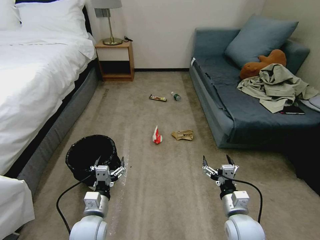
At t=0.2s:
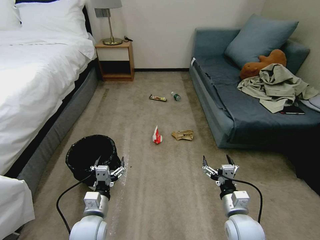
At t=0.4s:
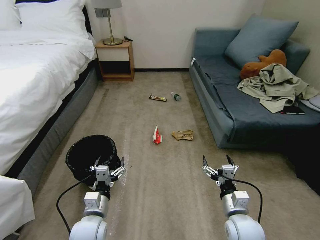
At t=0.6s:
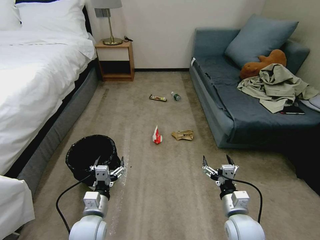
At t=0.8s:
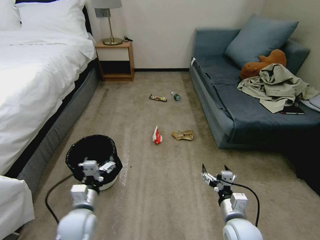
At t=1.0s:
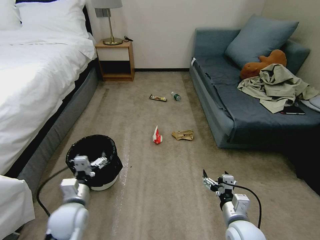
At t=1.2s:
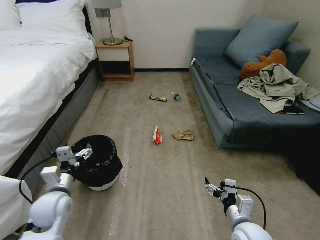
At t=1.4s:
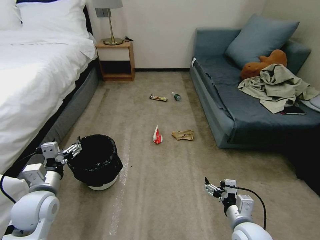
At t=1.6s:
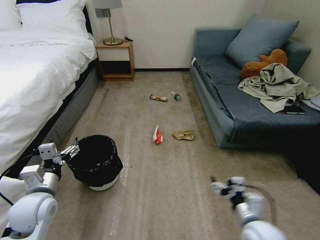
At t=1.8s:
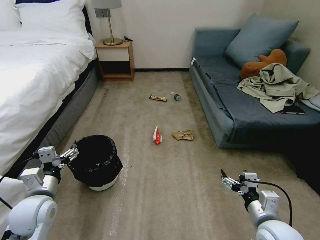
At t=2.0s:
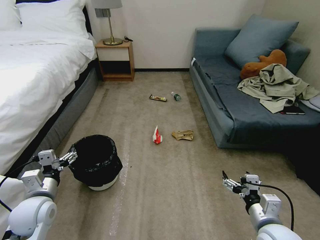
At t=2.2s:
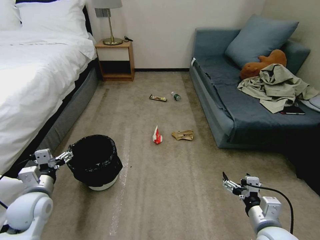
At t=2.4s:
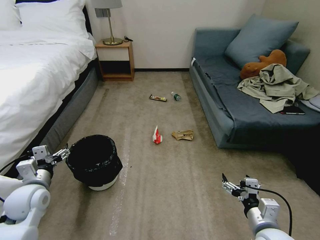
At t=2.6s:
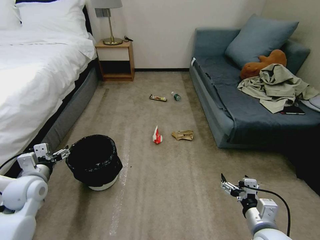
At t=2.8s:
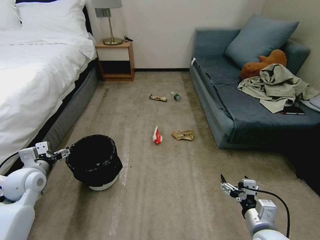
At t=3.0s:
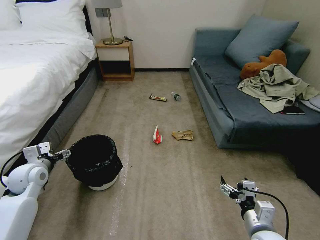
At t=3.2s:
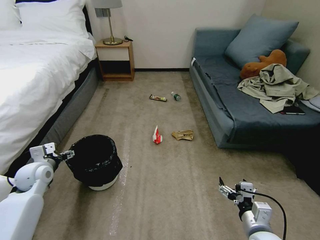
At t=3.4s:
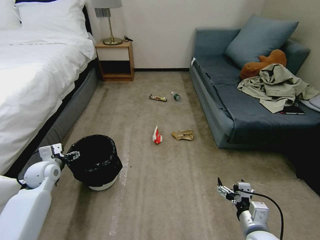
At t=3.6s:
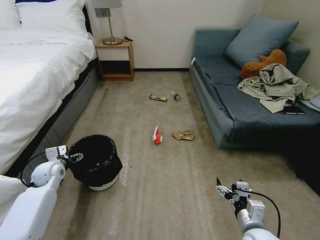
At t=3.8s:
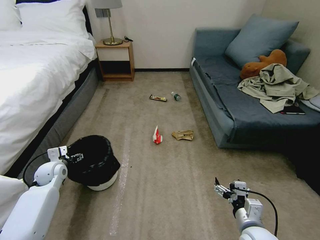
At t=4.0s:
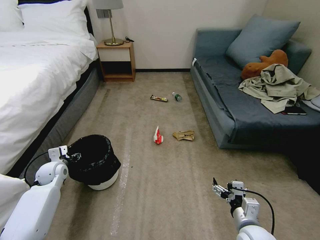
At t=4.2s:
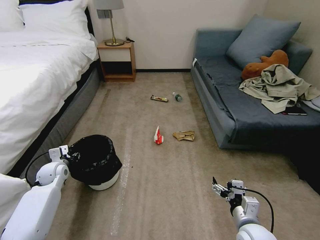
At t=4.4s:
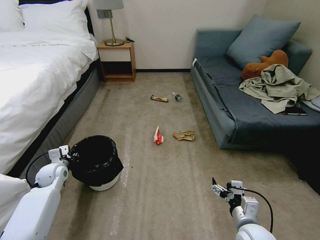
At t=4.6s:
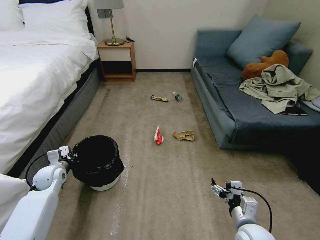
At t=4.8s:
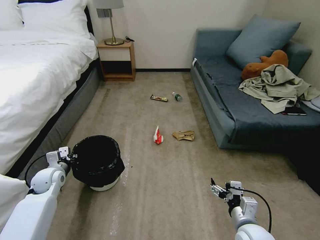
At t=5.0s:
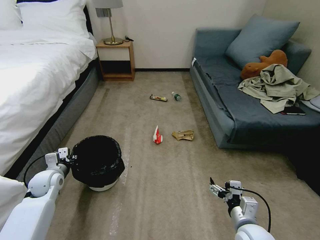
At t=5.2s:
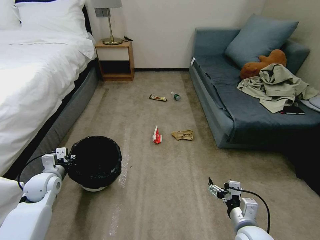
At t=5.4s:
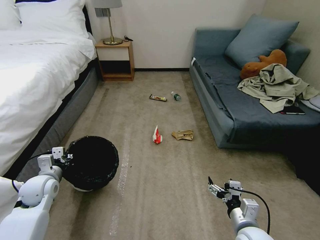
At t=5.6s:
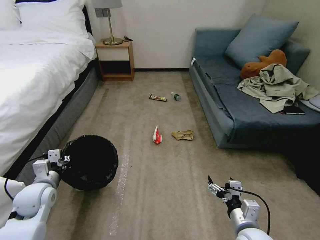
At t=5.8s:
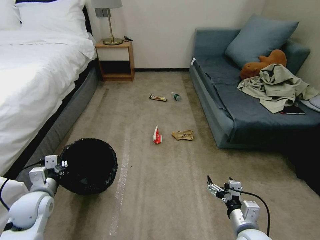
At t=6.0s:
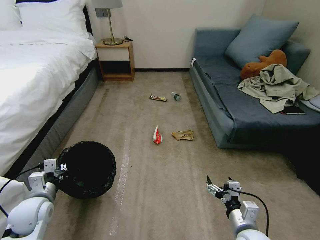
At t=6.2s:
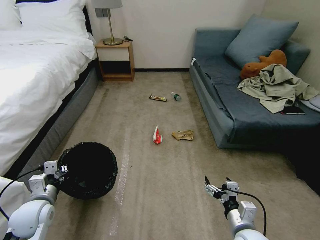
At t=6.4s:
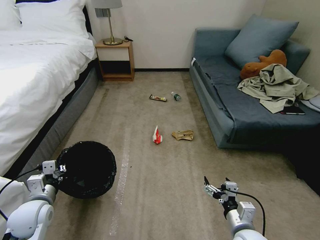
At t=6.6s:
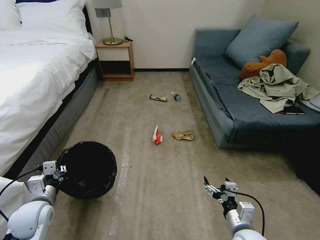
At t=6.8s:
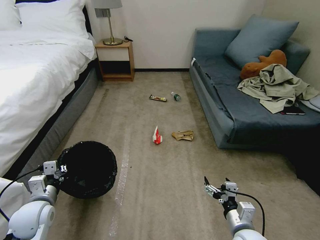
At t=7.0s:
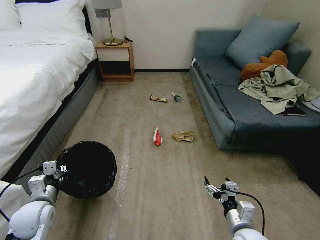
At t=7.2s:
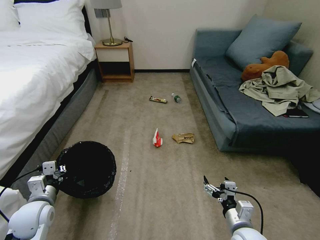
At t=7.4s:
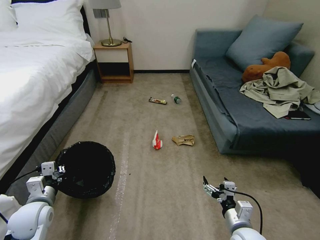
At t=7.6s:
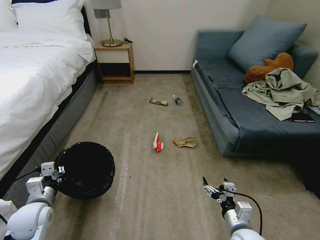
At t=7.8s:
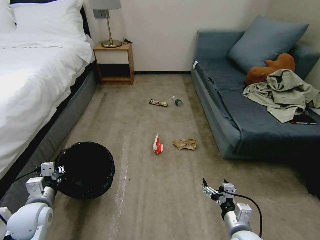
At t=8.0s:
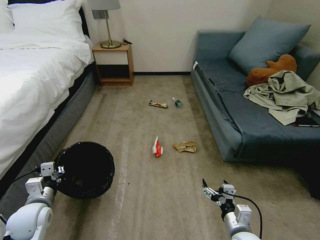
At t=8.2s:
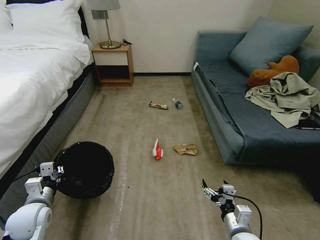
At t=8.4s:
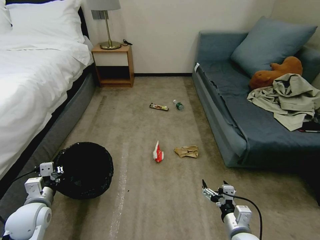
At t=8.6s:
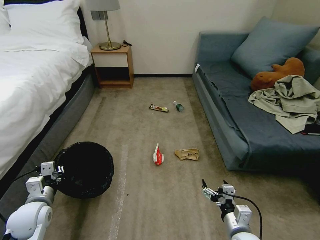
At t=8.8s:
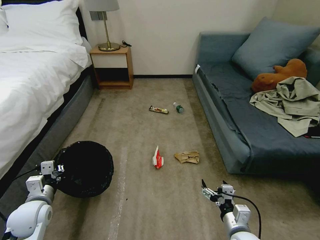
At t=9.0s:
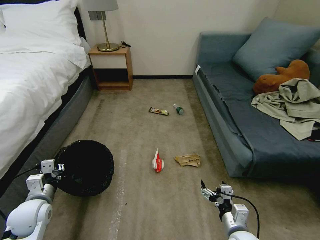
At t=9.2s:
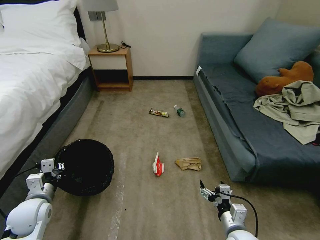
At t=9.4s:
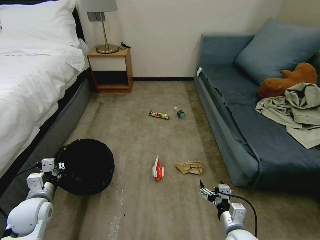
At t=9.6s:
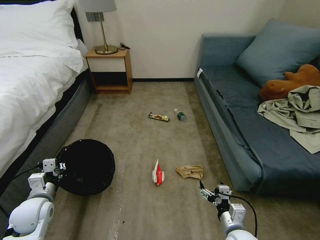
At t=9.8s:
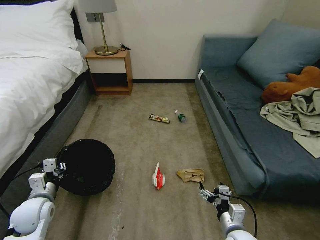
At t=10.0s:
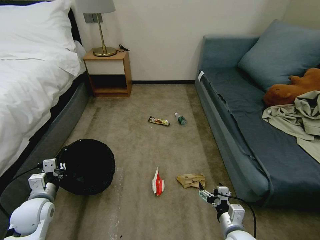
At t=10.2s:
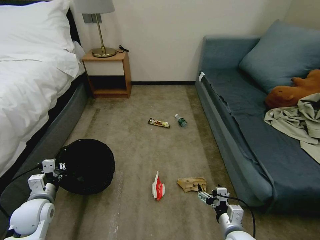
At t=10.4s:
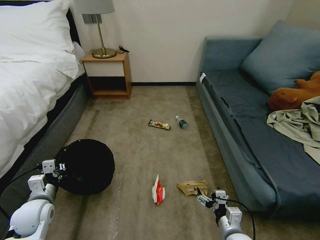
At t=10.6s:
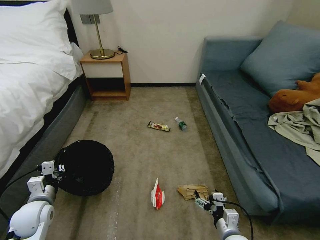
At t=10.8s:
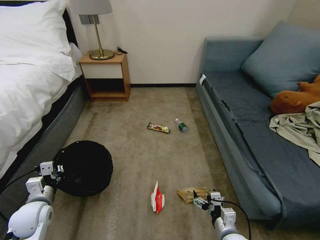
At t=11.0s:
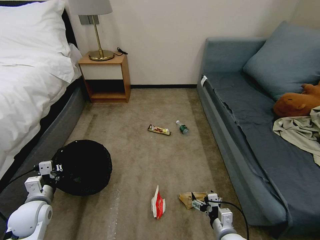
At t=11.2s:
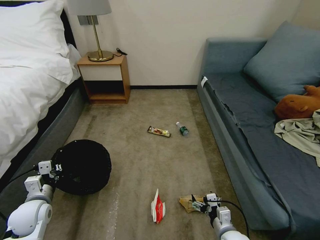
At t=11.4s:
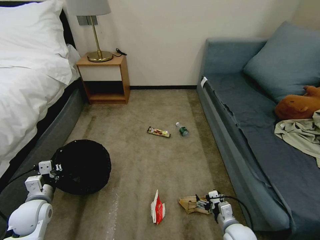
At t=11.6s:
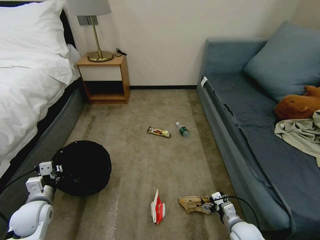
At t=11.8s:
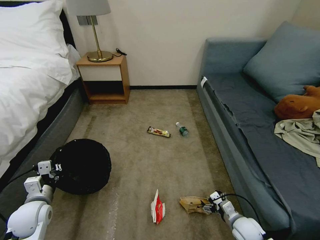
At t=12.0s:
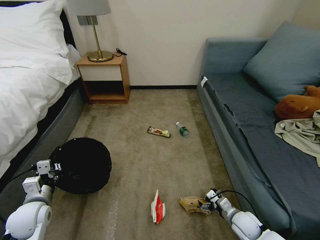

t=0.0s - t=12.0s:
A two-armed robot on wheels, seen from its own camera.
Task of the whole recording: Pick up the trash bin, then pick up the garbage on the floor and place it into the trash bin.
t=1.6s - t=3.0s: The left gripper shifts approximately 15 cm forward and to the left.
t=3.0s - t=4.4s: The left gripper moves downward and forward, approximately 10 cm, and closes its fingers.
t=4.4s - t=6.0s: The left gripper goes about 15 cm backward.
t=6.0s - t=7.6s: The grippers make only small movements.
t=10.4s - t=12.0s: The right gripper moves forward, to the right and downward, approximately 15 cm.

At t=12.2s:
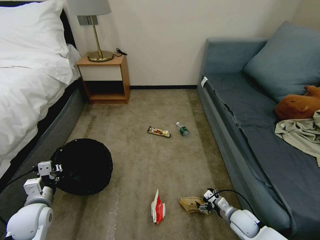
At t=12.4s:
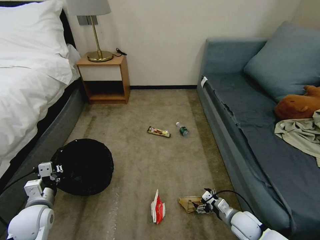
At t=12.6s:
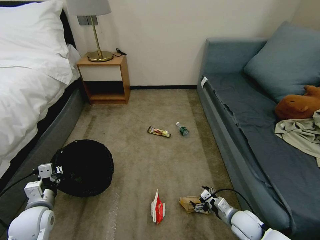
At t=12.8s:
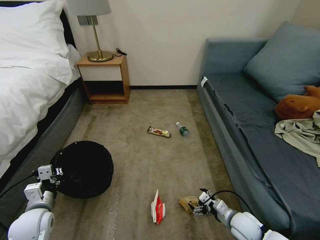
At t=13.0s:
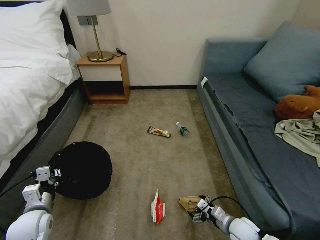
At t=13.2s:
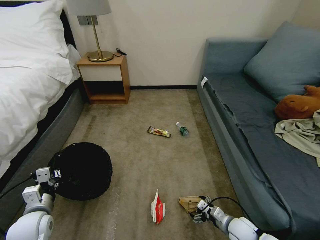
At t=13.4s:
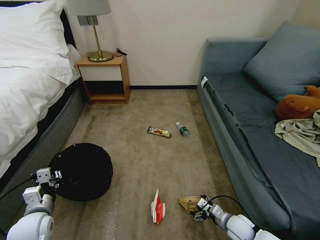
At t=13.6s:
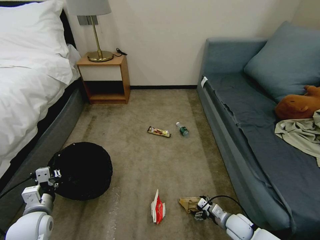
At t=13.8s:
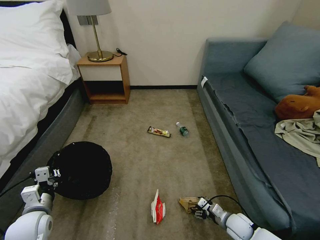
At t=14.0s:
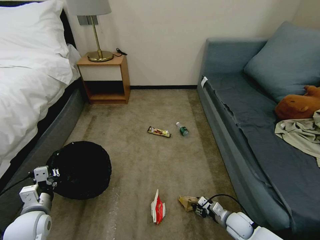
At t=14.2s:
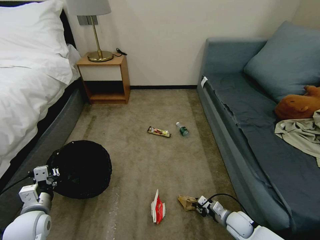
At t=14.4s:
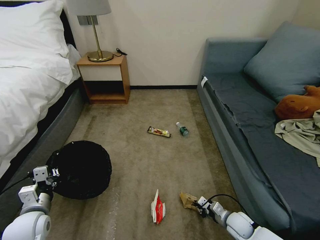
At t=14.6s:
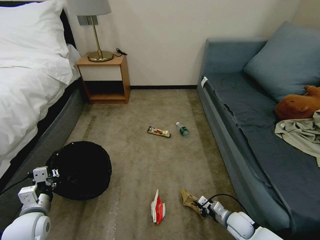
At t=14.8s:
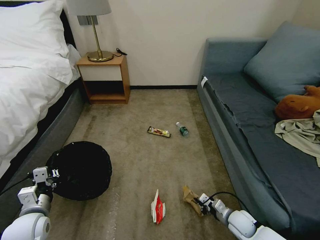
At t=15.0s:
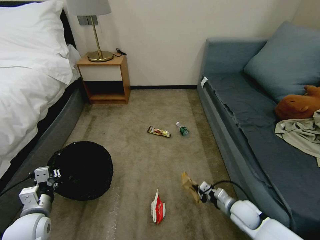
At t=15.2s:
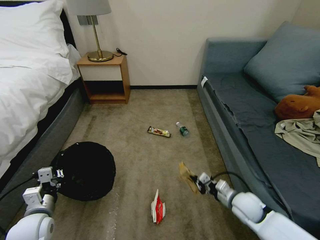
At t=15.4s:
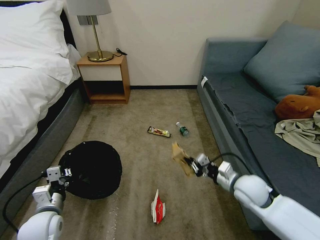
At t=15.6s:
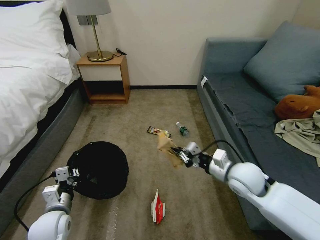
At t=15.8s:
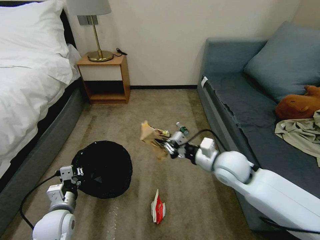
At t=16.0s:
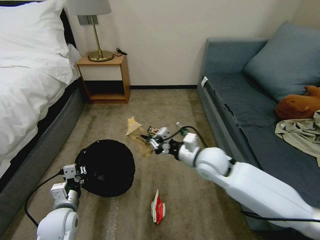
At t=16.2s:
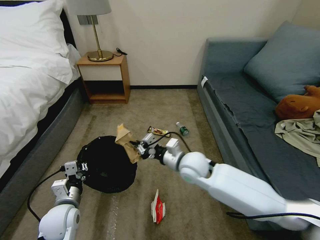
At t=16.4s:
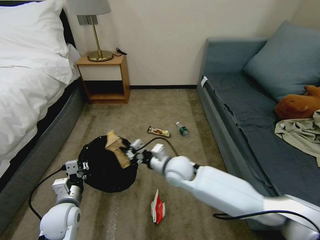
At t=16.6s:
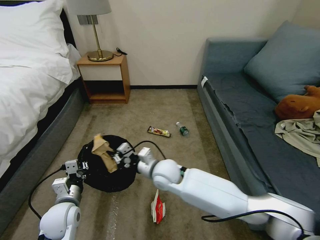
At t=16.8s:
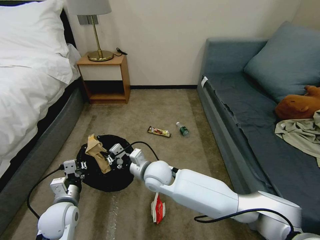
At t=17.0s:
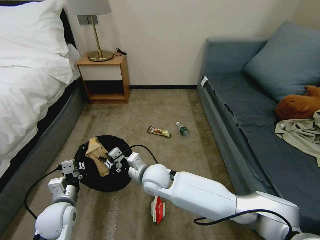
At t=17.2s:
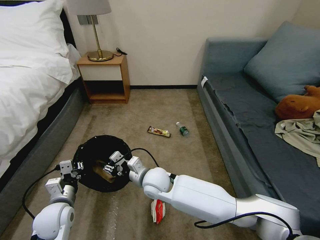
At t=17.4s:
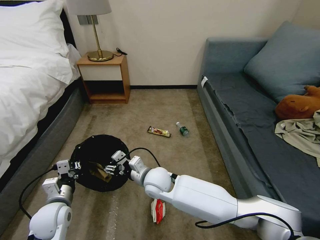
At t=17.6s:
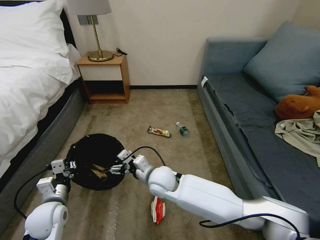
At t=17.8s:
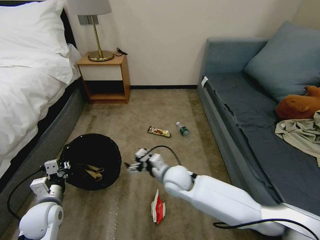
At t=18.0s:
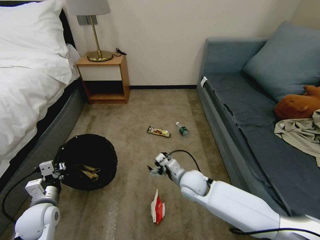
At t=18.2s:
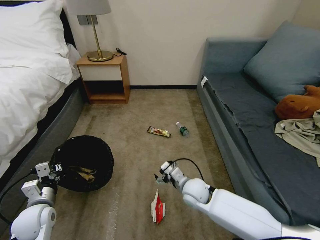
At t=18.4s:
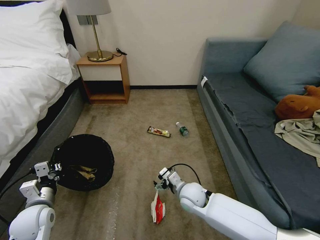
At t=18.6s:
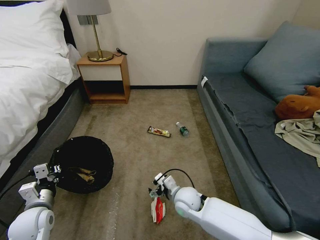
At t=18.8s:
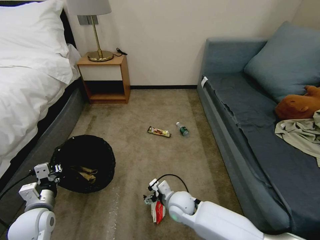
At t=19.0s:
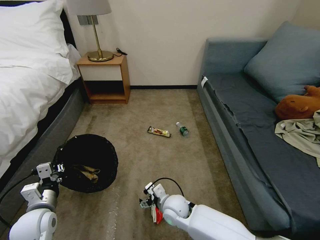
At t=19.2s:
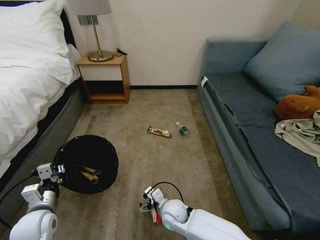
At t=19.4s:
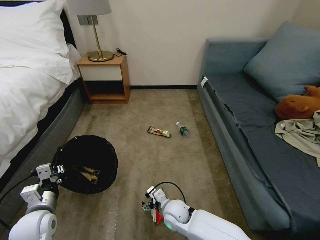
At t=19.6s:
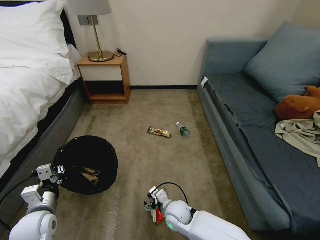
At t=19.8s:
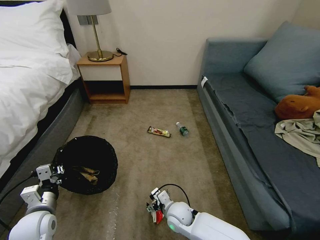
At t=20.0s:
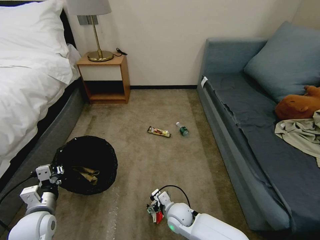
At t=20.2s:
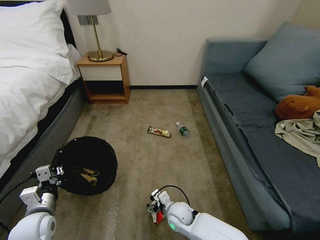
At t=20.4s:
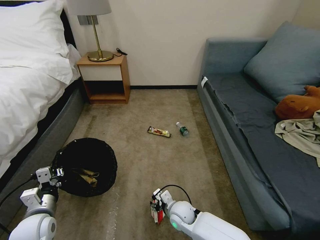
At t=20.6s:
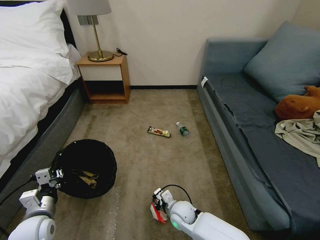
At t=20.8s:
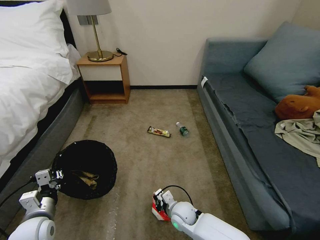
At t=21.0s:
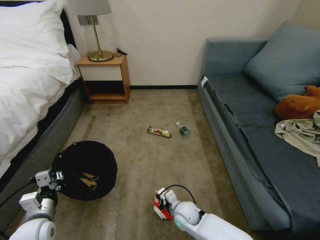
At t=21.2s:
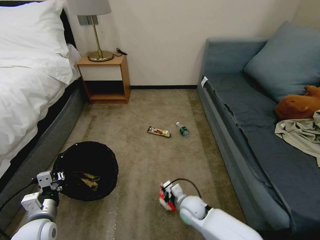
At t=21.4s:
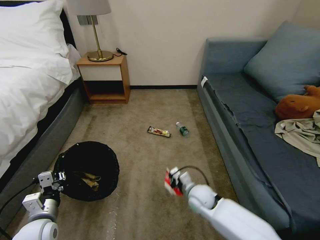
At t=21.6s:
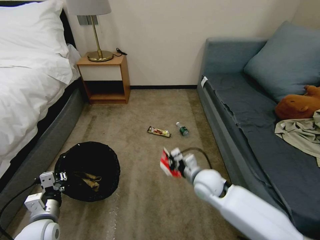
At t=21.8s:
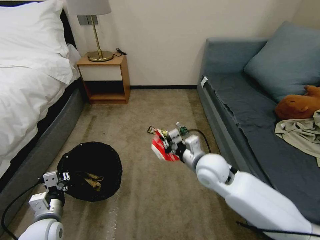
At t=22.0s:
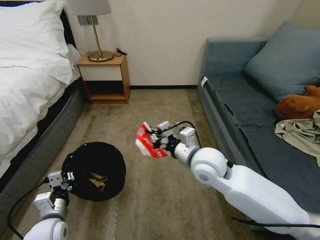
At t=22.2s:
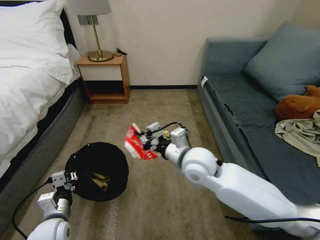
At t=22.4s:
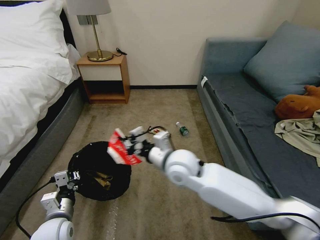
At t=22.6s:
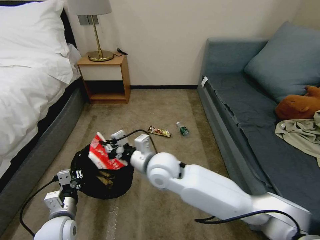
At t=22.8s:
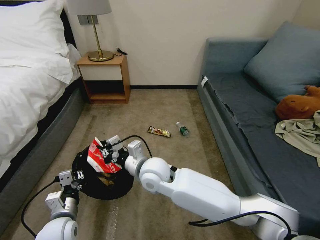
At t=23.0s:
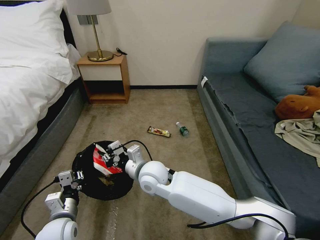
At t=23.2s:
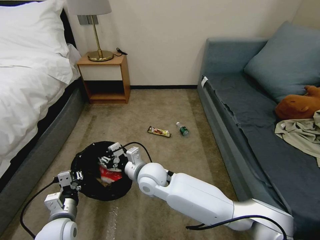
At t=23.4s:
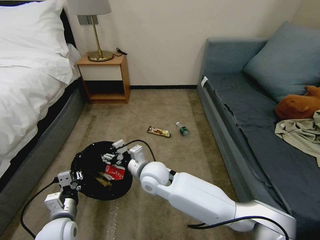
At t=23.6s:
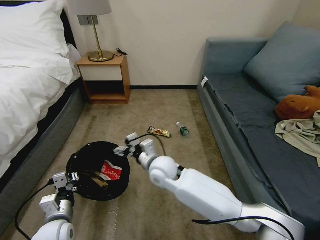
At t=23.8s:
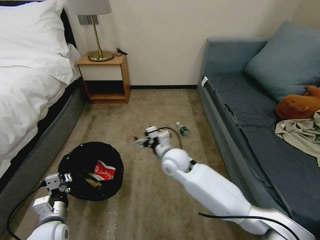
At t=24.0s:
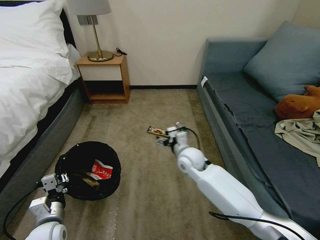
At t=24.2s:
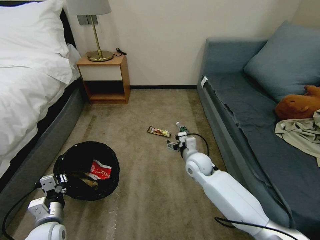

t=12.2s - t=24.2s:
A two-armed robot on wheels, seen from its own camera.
Task of the whole recording: Pick up the trash bin, then pick up the garbage on the floor and place it into the trash bin.
t=12.2s - t=13.8s: The grippers stay close to where they were, moving slightly.
t=13.8s - t=15.2s: The right gripper goes approximately 15 cm upward, and closes up.
t=15.2s - t=16.6s: The left gripper is displaced to the right by approximately 5 cm. The right gripper moves to the left, about 30 cm.
t=16.6s - t=18.2s: The right gripper moves to the right and downward, approximately 15 cm, and opens its fingers. Meanwhile the left gripper is displaced to the left by some 10 cm.
t=18.2s - t=19.8s: The right gripper heads downward, to the left and backward, covering about 10 cm.
t=19.8s - t=21.2s: The right gripper closes its fingers.
t=21.2s - t=22.6s: The right gripper travels upward and to the left by roughly 25 cm, while the left gripper is displaced to the right by some 5 cm.
t=22.6s - t=24.2s: The right gripper travels to the right, downward and forward by about 20 cm, and opens up.
